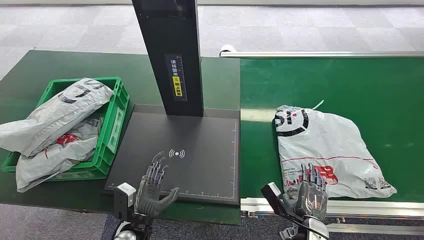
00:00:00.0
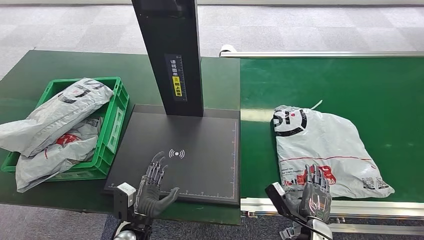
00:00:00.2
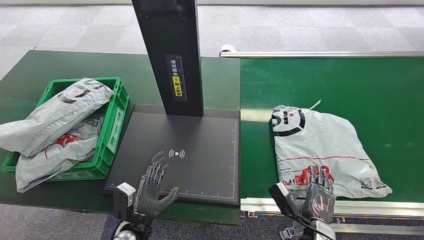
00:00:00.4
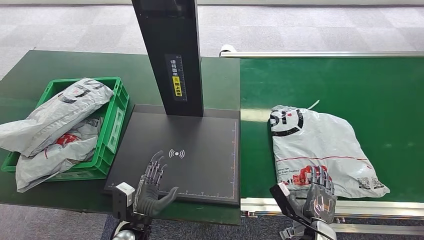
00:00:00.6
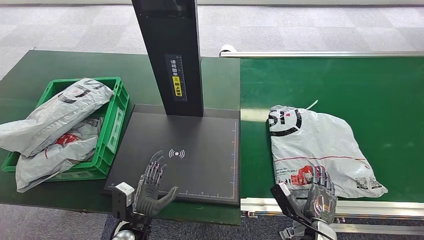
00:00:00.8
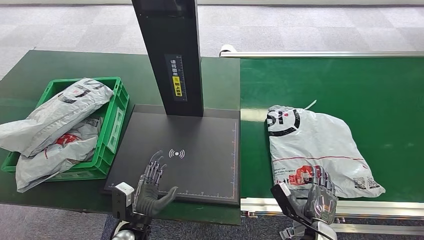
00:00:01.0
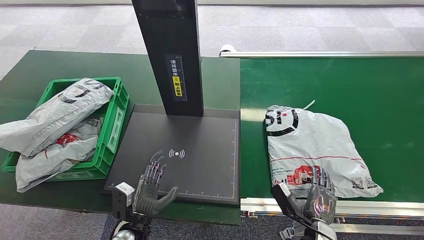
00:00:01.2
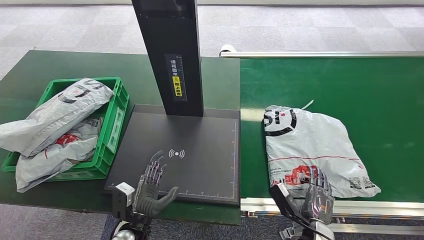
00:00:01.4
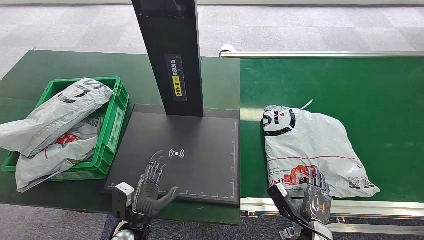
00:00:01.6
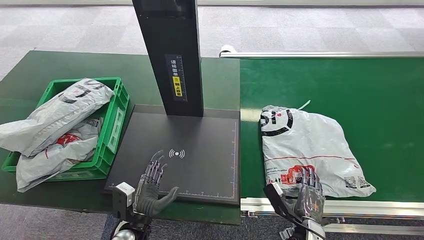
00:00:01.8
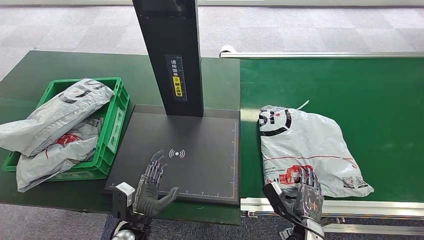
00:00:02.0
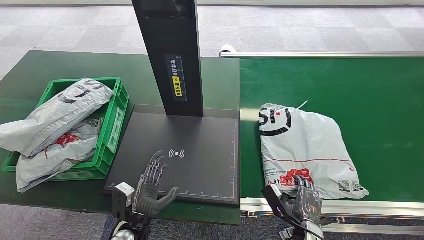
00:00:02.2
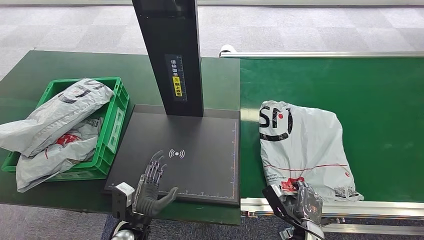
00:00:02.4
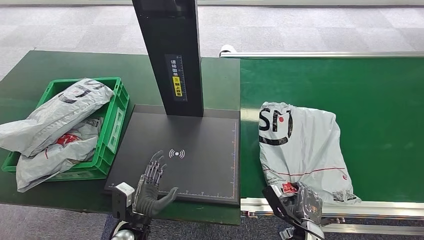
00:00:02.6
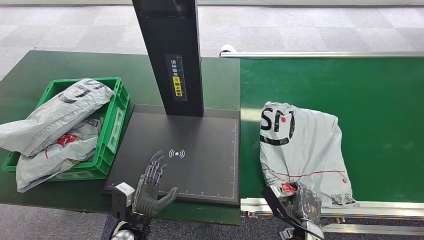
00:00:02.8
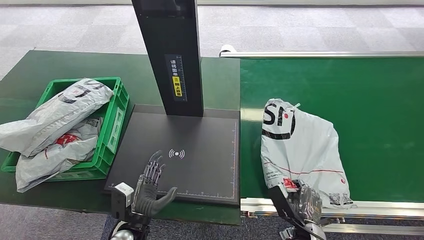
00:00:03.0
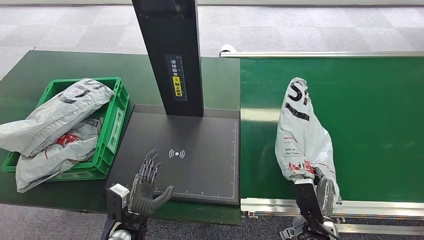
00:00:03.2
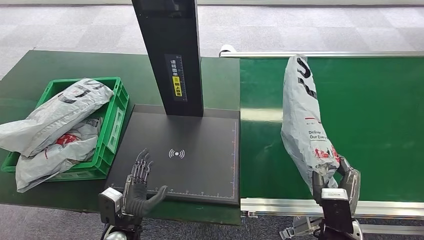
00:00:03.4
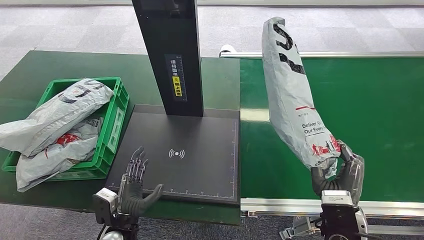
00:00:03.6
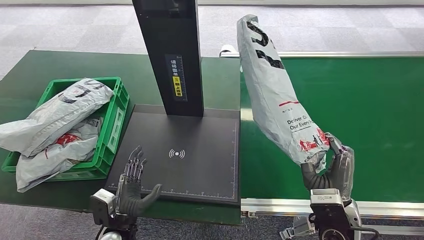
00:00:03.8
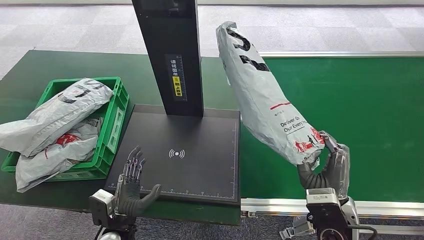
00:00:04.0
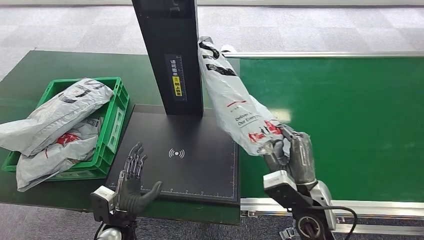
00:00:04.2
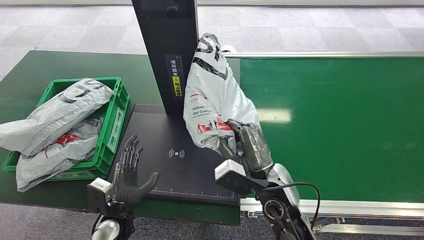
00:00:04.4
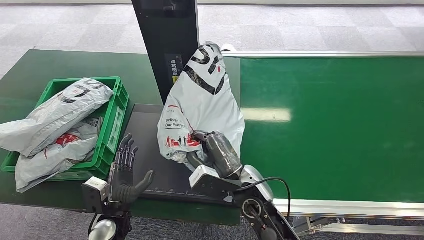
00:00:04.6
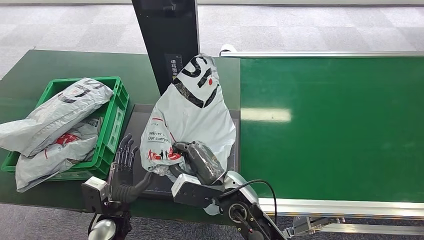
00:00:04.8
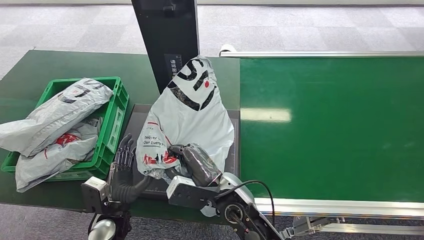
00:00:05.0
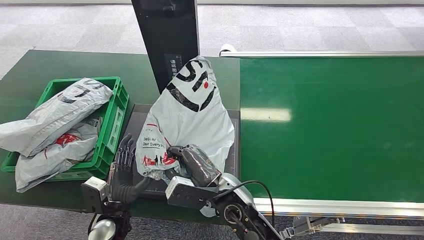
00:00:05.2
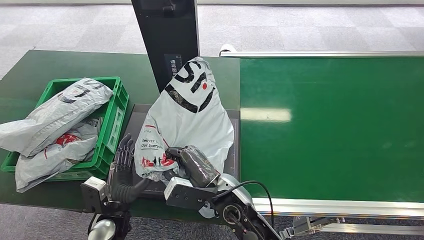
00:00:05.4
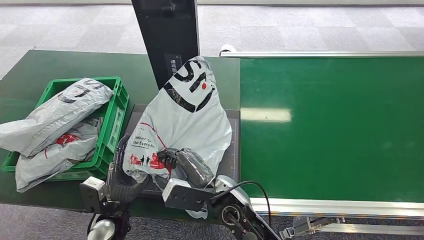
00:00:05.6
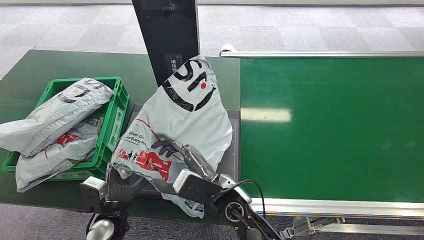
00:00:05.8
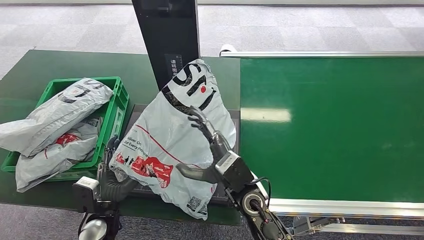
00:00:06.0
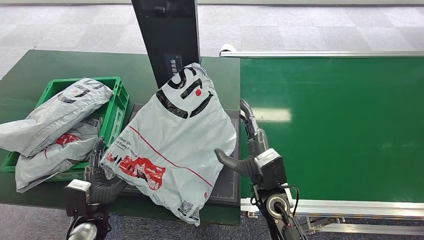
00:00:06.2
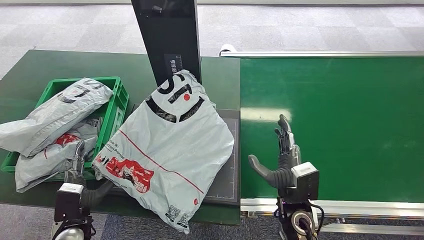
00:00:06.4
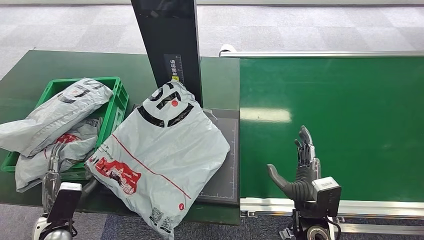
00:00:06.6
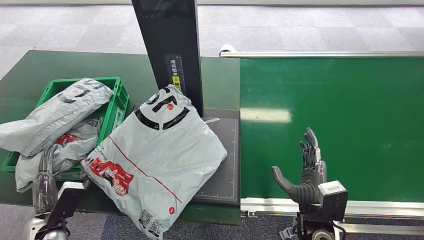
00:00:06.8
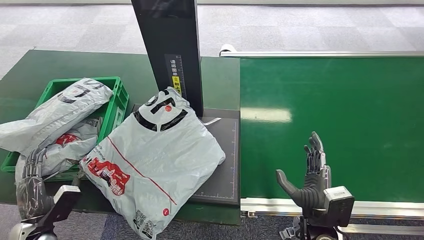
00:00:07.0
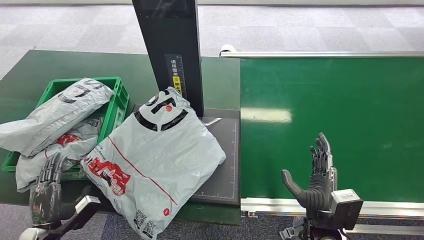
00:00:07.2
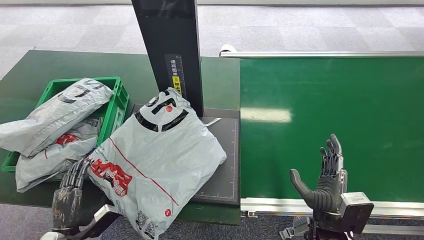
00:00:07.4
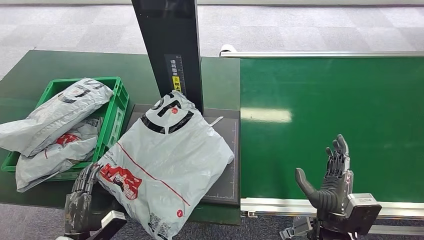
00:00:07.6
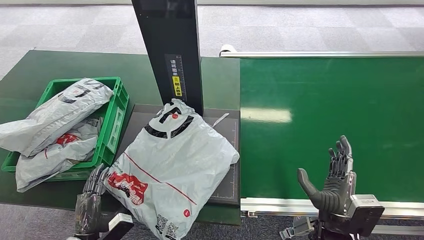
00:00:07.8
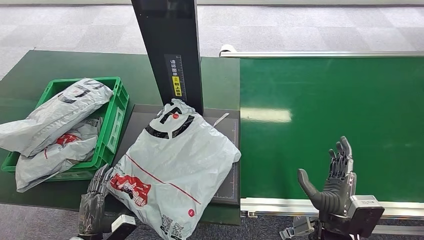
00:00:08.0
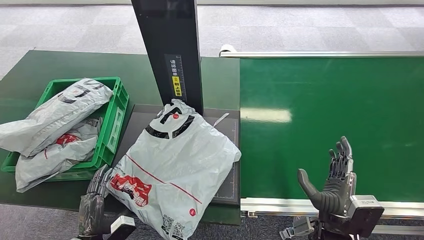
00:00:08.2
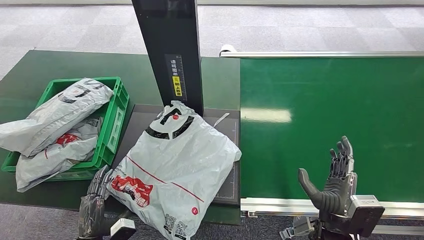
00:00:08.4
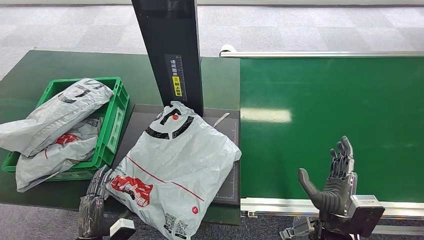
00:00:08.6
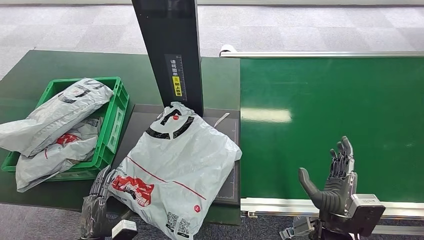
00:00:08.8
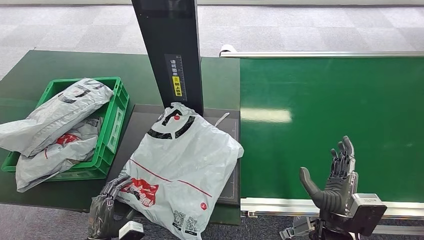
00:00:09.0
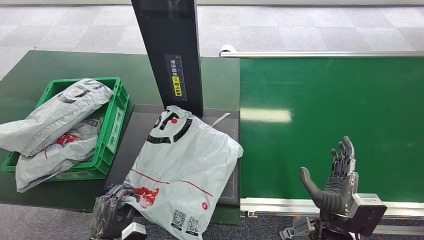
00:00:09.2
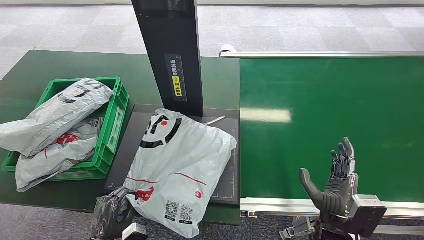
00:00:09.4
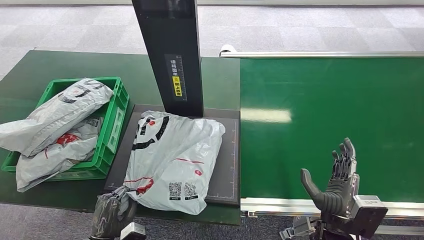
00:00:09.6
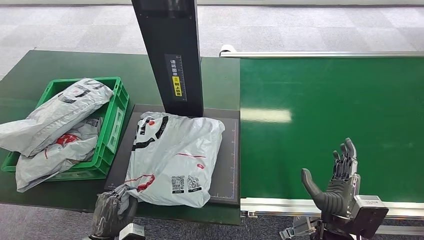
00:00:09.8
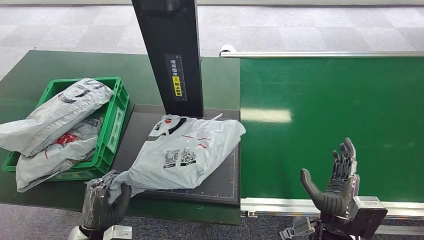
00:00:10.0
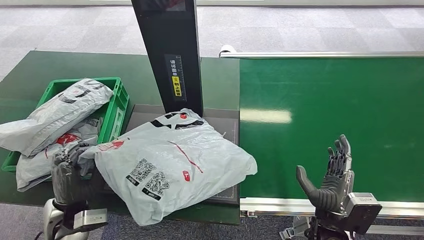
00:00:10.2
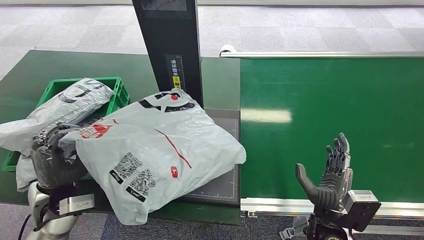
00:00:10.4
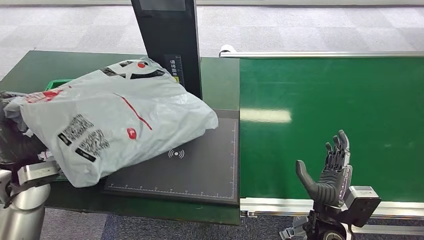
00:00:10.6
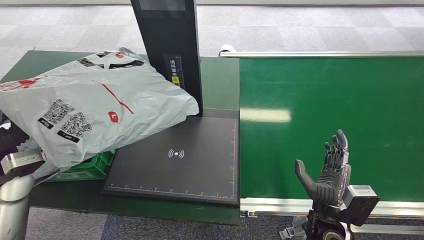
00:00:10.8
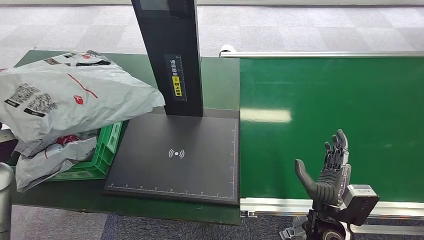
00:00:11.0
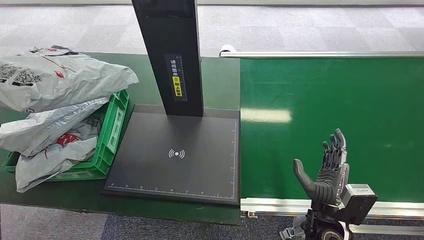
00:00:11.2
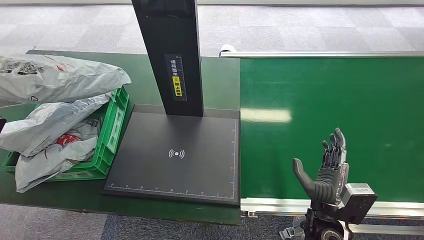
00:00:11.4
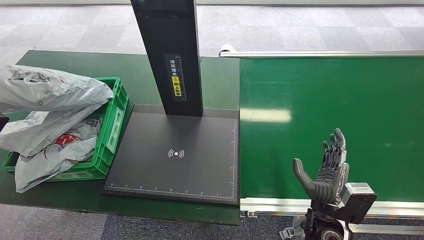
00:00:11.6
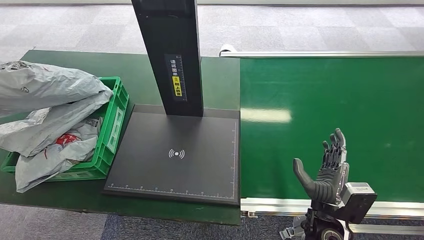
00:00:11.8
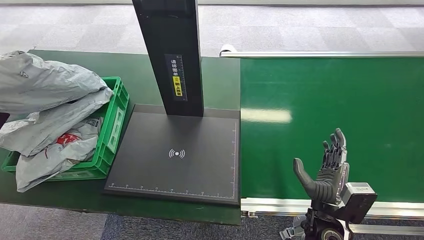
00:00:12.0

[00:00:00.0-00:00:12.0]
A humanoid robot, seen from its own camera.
Step, 00:00:00.0 to 00:00:04.0: Pick up the package from the conveyor belt.
Step, 00:00:04.2 to 00:00:06.8: Place the package onto the inbound machine.
Step, 00:00:07.0 to 00:00:10.6: Pick up the package from the inbound machine.
00:00:01.6 to 00:00:03.0: There are only small adjustments of the hands.
00:00:04.4 to 00:00:06.0: The right hand shifts roughly 5 cm to the left.
00:00:06.0 to 00:00:07.6: The right hand heads to the right, covering roughly 20 cm. Meanwhile the left hand moves to the left and backward, approximately 10 cm.
00:00:07.6 to 00:00:09.0: The left hand goes some 5 cm to the right.

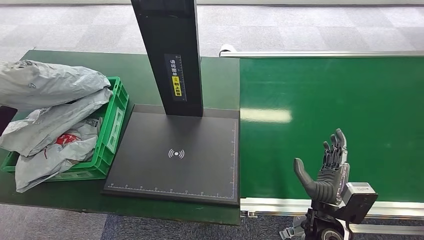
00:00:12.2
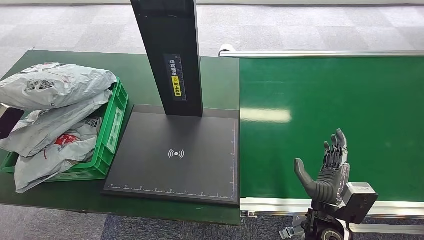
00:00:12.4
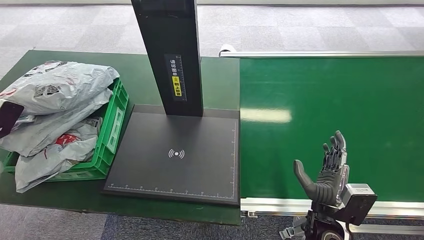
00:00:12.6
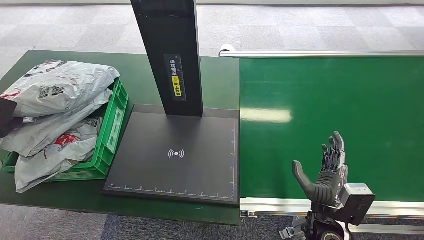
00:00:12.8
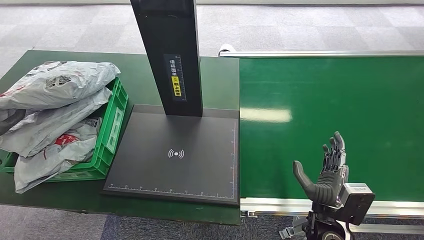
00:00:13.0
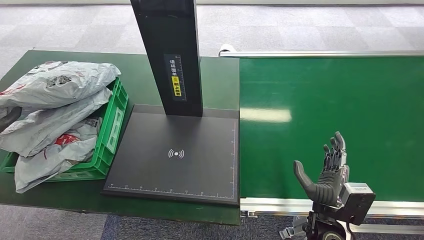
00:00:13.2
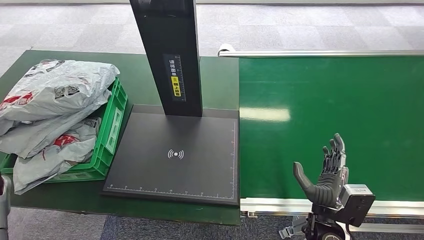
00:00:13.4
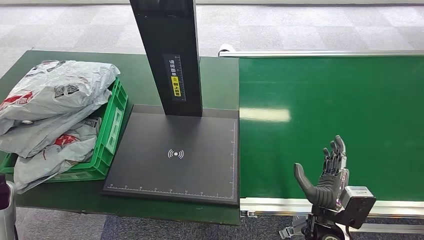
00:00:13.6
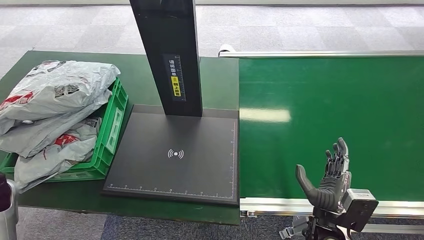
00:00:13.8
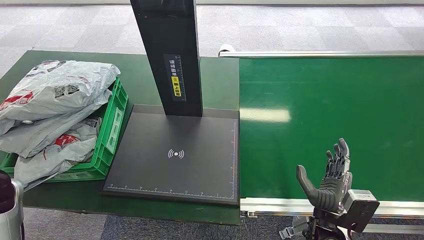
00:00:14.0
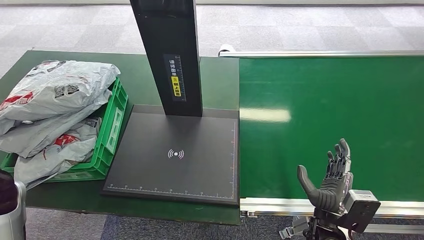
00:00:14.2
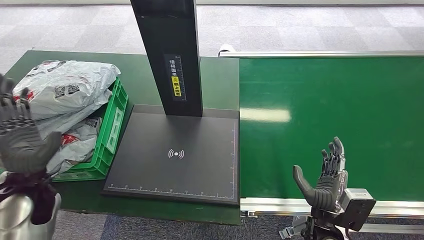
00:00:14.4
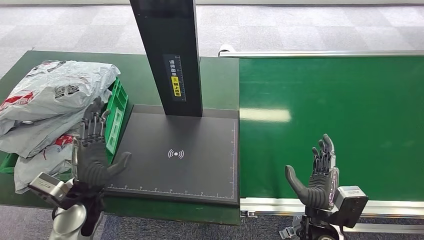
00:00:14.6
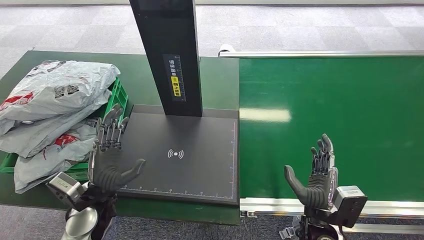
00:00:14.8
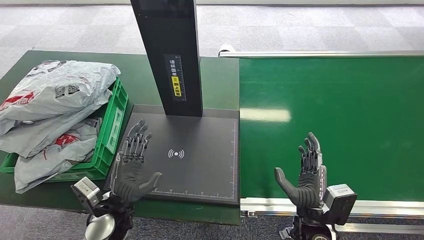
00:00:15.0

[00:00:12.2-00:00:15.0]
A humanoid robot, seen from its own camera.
Step, 00:00:12.2 to 00:00:15.0: Place the package into the parcel locker.
00:00:12.2 to 00:00:13.6: The left hand shifts approximately 10 cm to the right.
00:00:13.6 to 00:00:15.0: The left hand is displaced to the right and downward by approximately 30 cm.
